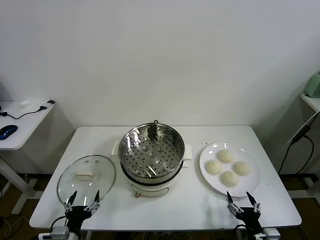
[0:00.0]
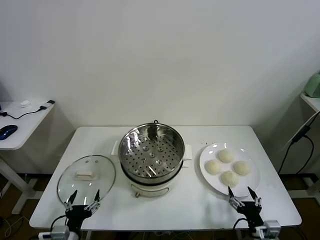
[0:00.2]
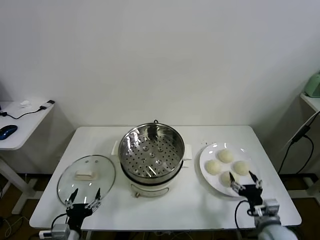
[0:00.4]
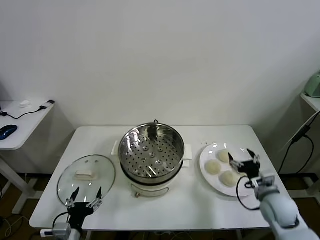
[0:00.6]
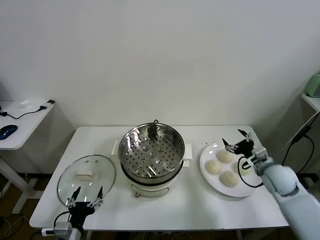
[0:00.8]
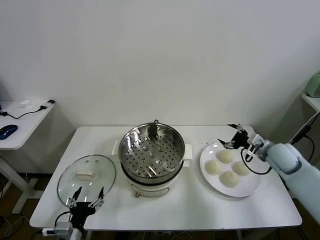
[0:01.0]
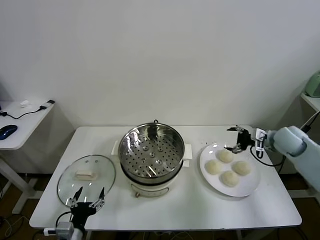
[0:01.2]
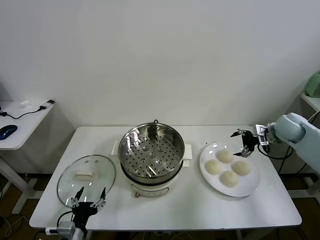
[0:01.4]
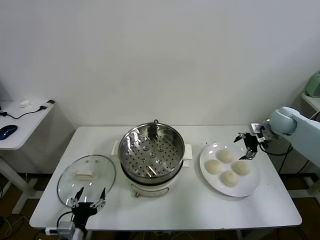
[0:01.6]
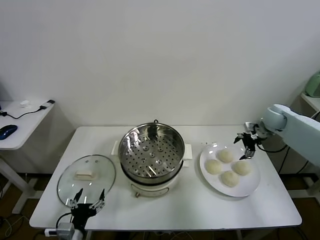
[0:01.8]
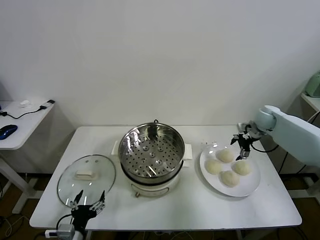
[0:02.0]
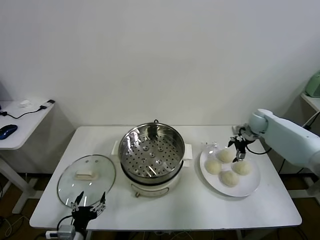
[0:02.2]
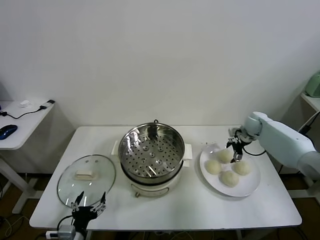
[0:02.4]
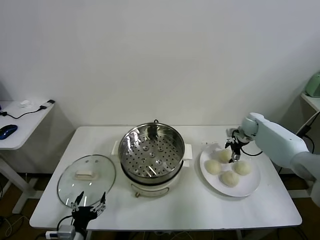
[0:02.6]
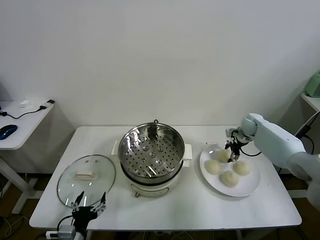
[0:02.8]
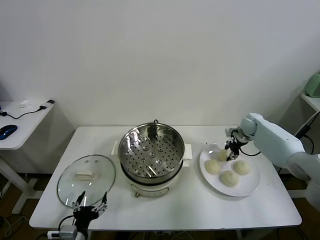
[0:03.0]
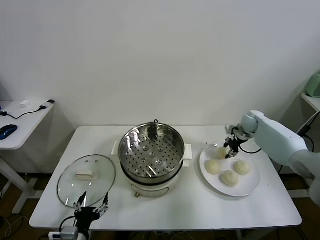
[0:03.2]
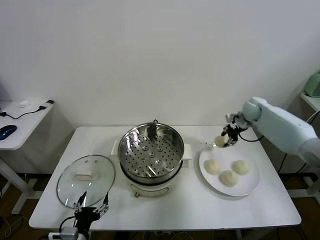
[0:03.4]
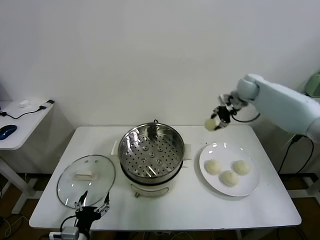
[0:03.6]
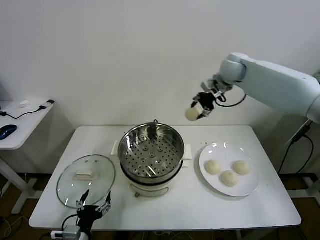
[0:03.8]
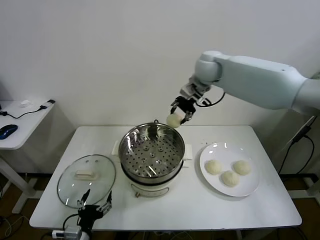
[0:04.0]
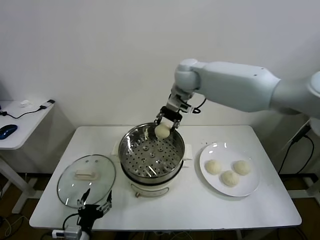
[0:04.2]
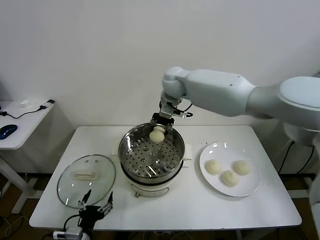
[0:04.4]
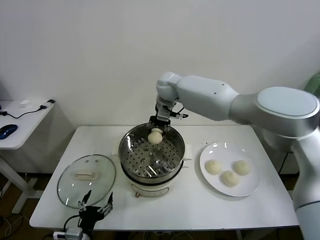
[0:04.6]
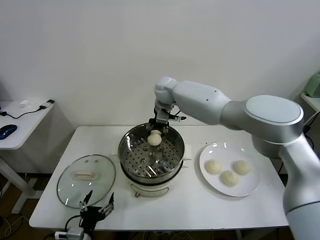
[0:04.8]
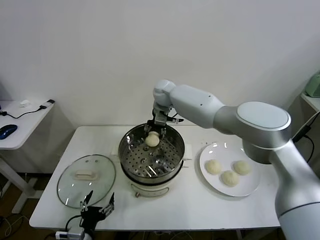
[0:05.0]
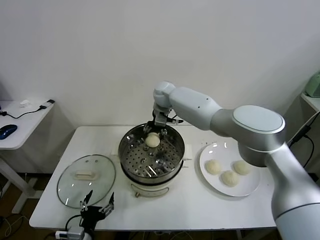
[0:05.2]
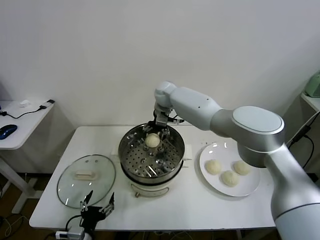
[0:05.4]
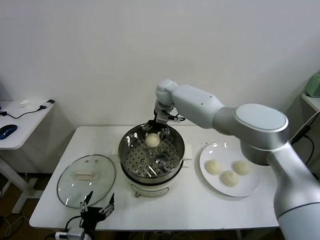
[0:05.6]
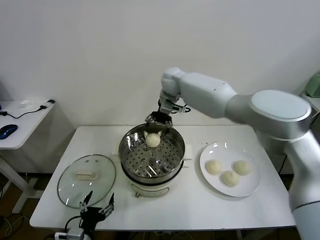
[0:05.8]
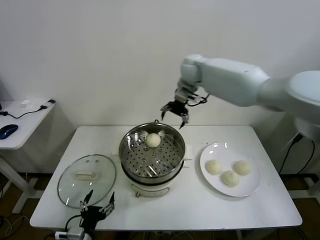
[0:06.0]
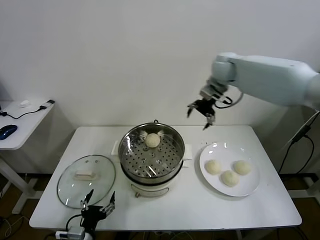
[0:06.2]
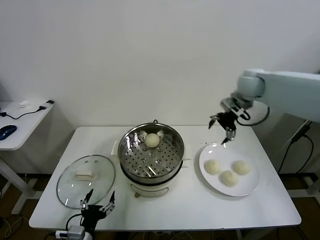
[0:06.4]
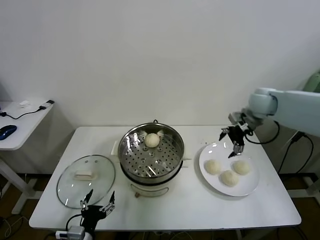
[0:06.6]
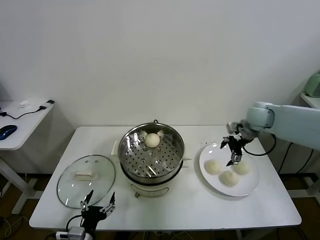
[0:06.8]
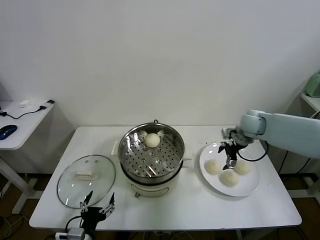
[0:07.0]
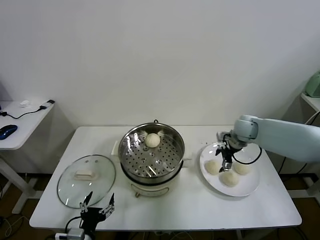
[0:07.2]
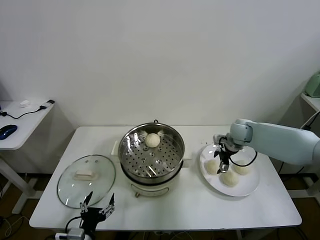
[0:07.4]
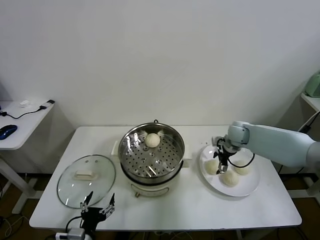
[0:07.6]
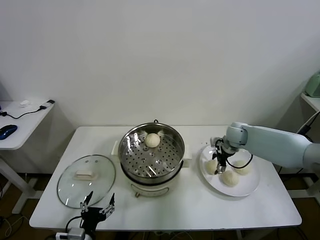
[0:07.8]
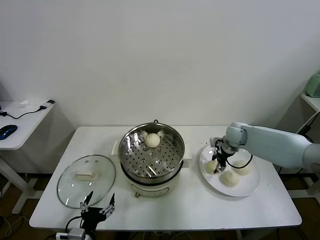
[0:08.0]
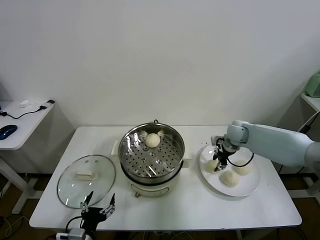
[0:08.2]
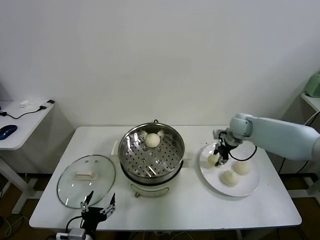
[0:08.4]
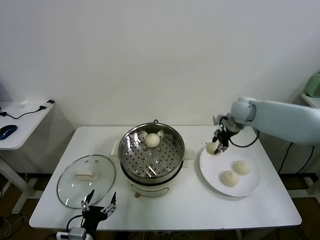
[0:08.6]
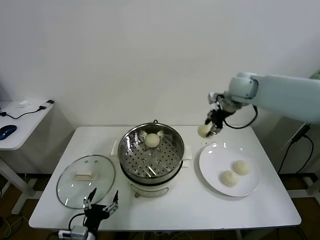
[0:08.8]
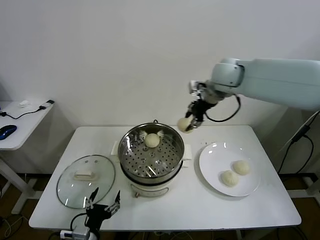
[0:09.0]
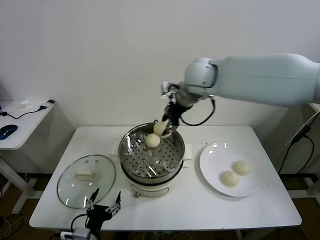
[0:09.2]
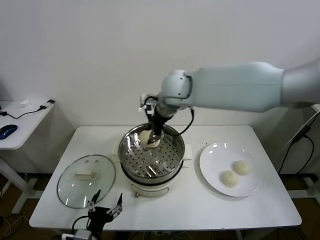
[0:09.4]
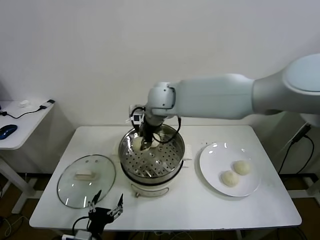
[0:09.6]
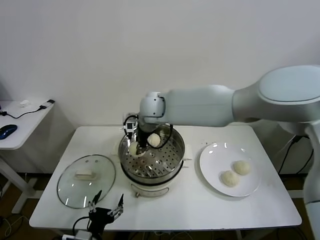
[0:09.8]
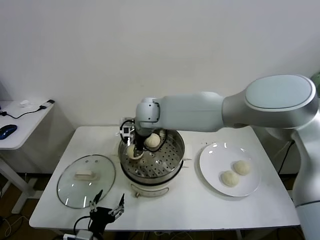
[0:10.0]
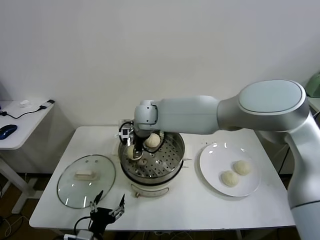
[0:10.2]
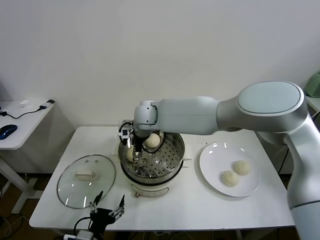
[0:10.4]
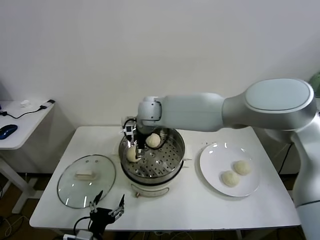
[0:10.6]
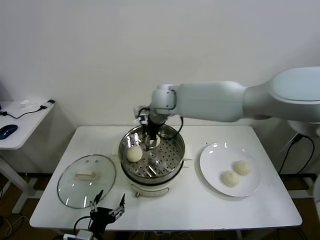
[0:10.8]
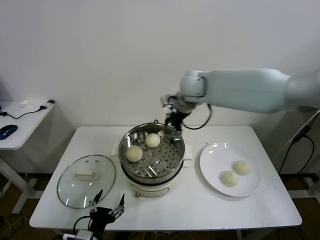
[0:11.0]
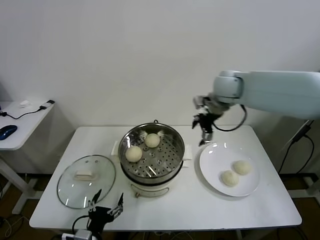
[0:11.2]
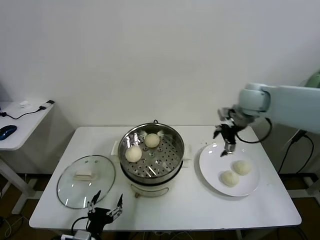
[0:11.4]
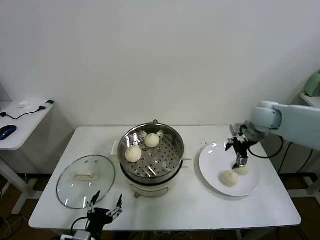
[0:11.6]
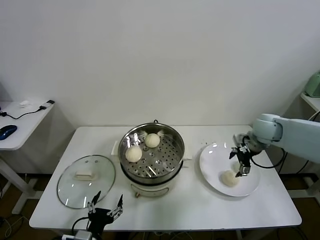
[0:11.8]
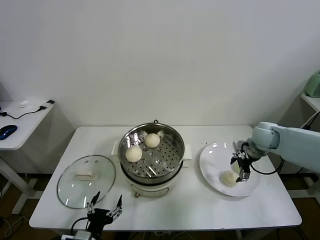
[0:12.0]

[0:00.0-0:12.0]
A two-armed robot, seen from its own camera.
Task of the whole recording: take steamed baozi put them in steamer.
Step, 0.0 to 2.6 s: Grasp the baozi in the plate with right gripper.
Step, 2.8 to 5.4 s: Place the baozi on the steamer with right gripper.
Step, 5.6 to 8.0 s: Grasp the baozi in the plate with right gripper.
Step, 8.2 to 10.4 s: Place the baozi on the steamer with right gripper.
1.6 to 3.0 s: The right gripper goes roughly 10 cm downward and forward, and closes up.
3.0 to 4.4 s: The right gripper goes about 40 cm to the left and upward.
4.4 to 6.0 s: The right gripper heads to the right and upward, covering about 15 cm, and opens.
6.0 to 7.6 s: The right gripper shifts about 30 cm downward and to the right.
7.6 to 9.0 s: The right gripper shifts about 30 cm upward and to the left, and closes its fingers.
9.0 to 10.4 s: The right gripper goes roughly 25 cm to the left and downward, and opens.
10.4 to 12.0 s: The right gripper travels to the right by about 40 cm.

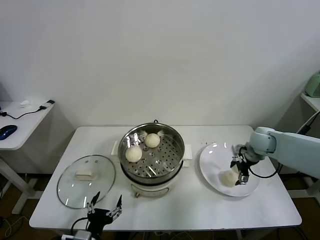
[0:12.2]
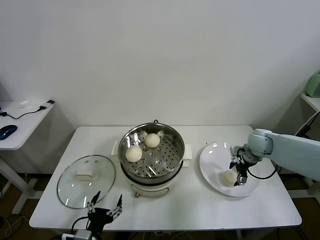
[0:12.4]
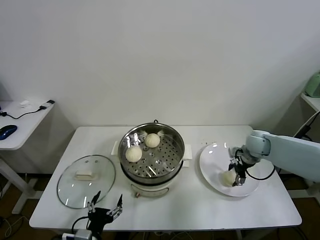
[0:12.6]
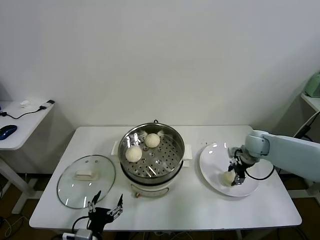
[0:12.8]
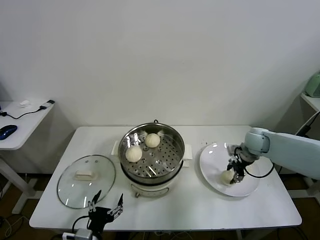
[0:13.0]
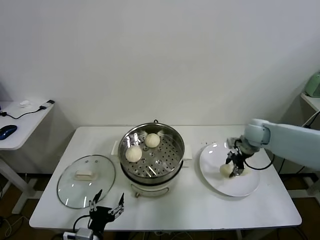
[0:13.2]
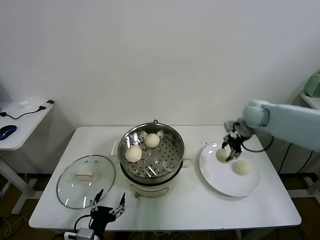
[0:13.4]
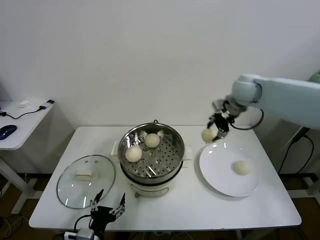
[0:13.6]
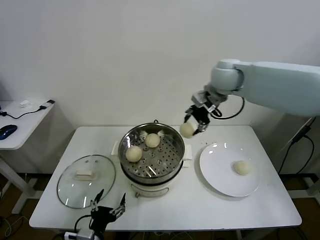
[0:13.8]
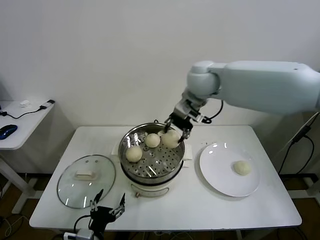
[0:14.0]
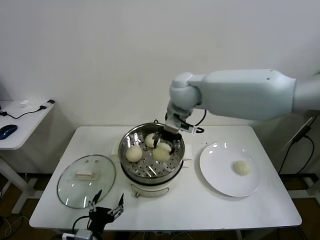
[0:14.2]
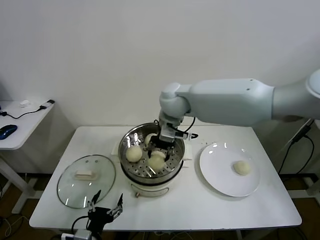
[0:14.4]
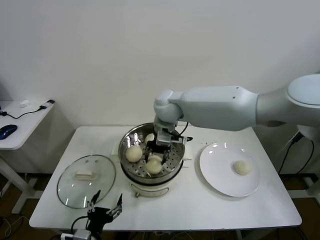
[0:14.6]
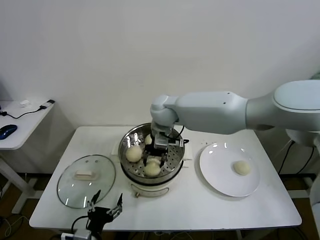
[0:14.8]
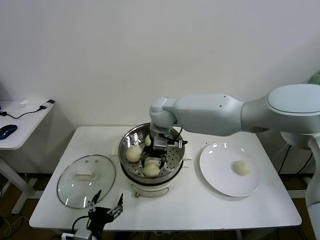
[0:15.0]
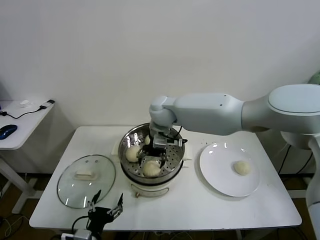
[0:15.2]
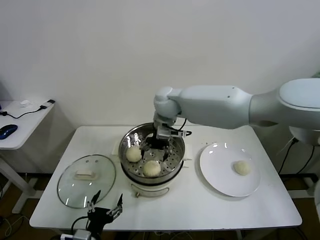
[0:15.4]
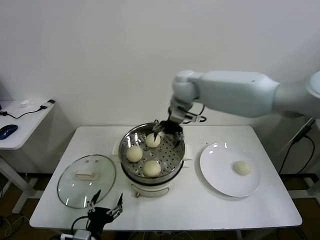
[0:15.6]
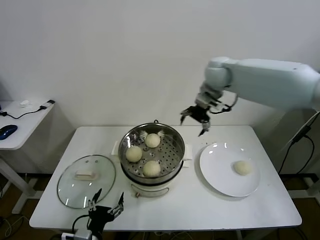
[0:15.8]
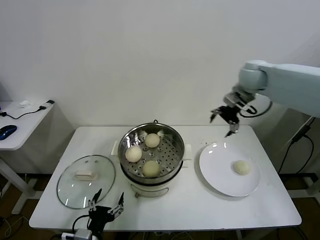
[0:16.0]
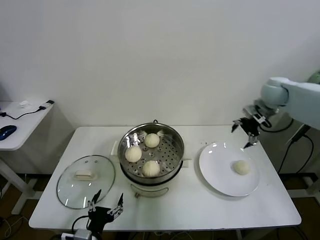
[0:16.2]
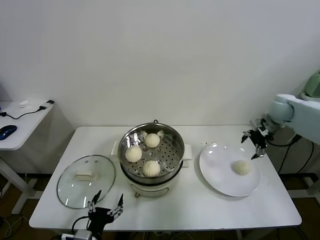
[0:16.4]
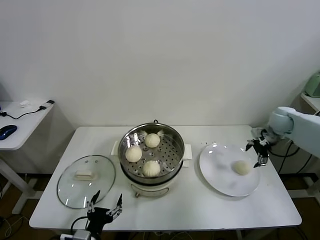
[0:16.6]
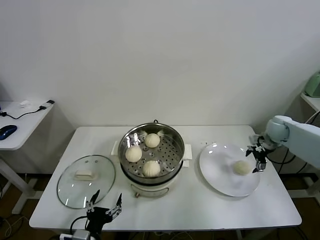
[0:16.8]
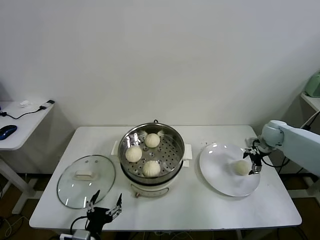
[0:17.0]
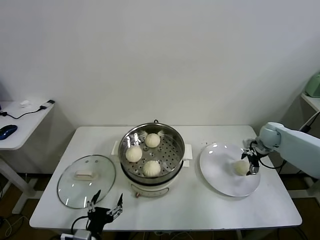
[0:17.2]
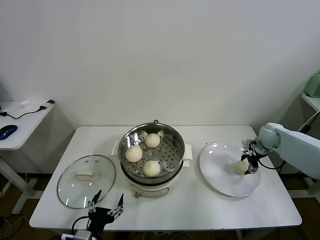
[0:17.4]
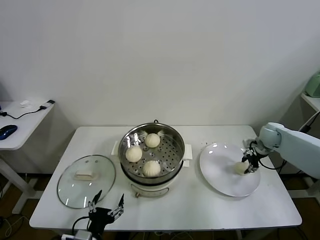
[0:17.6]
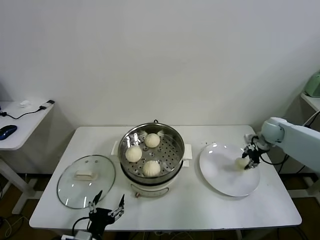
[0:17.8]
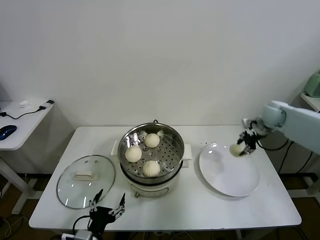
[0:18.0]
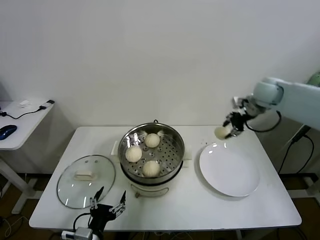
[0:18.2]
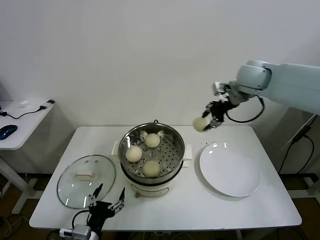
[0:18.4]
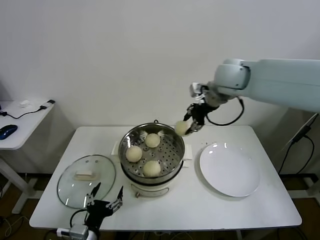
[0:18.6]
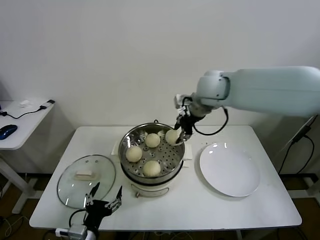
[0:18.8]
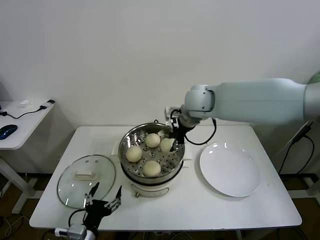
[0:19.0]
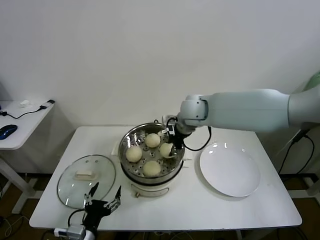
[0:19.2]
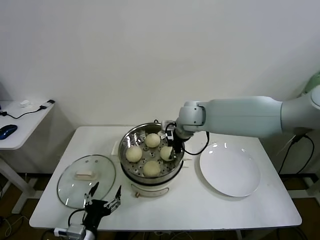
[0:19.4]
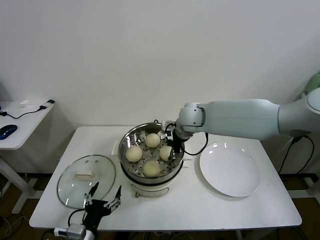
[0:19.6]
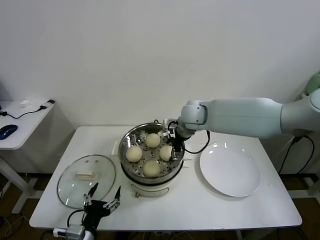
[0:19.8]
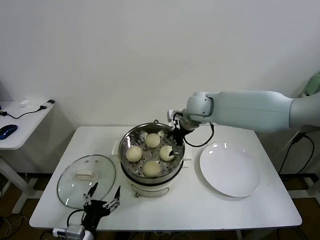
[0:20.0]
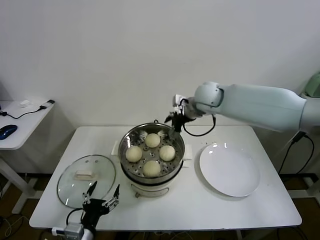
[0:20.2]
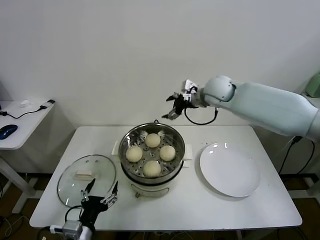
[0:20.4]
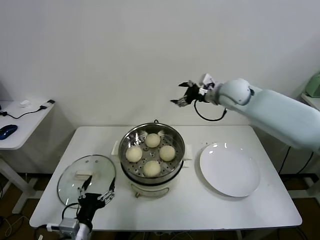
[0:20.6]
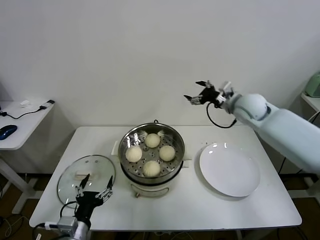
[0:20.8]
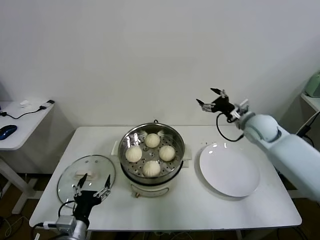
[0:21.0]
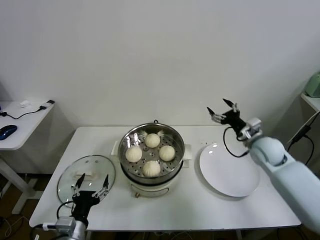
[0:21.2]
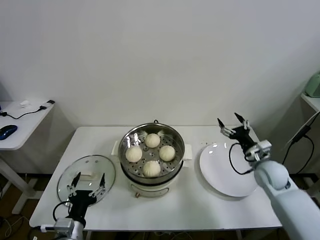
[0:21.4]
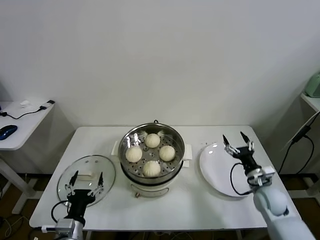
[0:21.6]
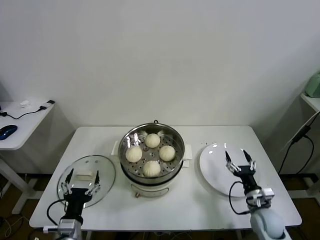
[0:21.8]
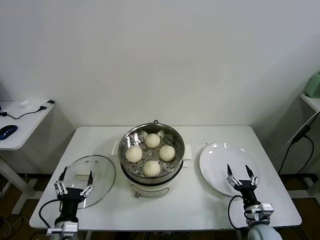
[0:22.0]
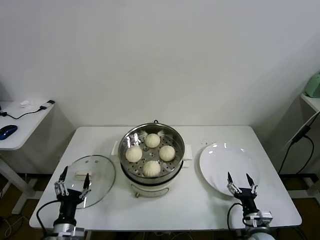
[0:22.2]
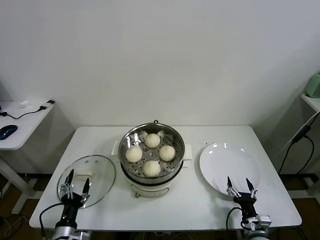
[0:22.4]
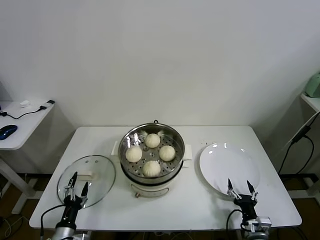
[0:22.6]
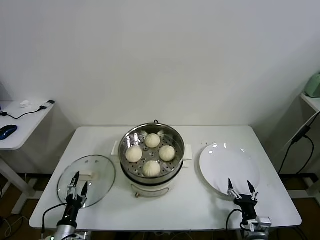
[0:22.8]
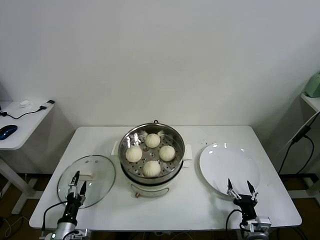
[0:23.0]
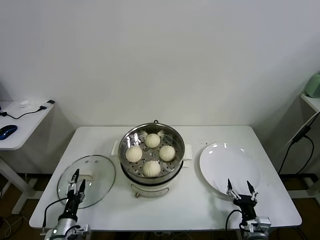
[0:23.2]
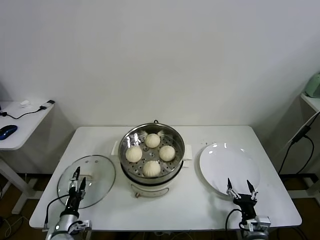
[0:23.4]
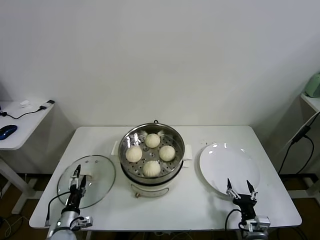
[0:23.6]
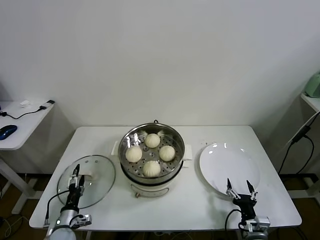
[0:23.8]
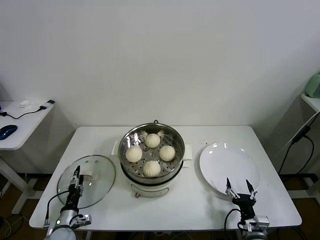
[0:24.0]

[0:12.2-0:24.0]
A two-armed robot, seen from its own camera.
Task of the whole recording: take steamed baozi put them in steamer.
Step, 12.8 to 15.0 s: Place the baozi on the steamer with right gripper.
Step, 15.2 to 17.4 s: Grasp the baozi in the plate with right gripper.
Step, 17.6 to 19.8 s: Place the baozi on the steamer with right gripper.
12.2 to 13.6 s: The right gripper is displaced upward and to the left by some 25 cm, and closes up.
13.6 to 15.2 s: The right gripper goes roughly 25 cm to the left, and opens its fingers.
15.2 to 16.6 s: The right gripper travels to the right by approximately 40 cm.
16.6 to 18.2 s: The right gripper shifts some 15 cm upward and to the left, and closes.
18.2 to 19.6 s: The right gripper goes approximately 25 cm to the left.
19.6 to 21.0 s: The right gripper travels to the right by roughly 20 cm, and opens its fingers.
21.0 to 22.6 s: The left gripper heads downward and to the left, covering roughly 15 cm, while the right gripper shifts approximately 40 cm downward and backward.
22.6 to 24.0 s: The left gripper moves forward, roughly 5 cm.
